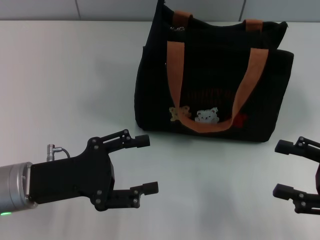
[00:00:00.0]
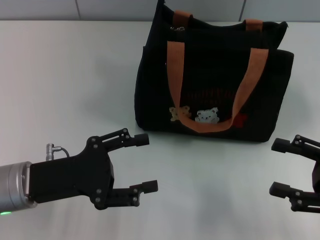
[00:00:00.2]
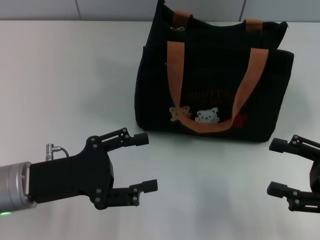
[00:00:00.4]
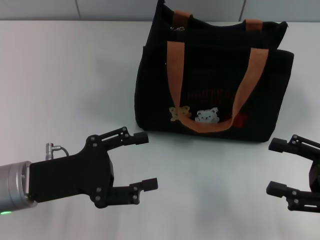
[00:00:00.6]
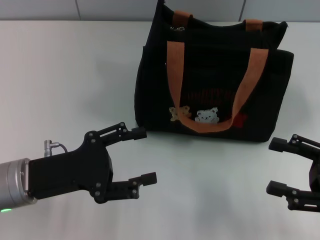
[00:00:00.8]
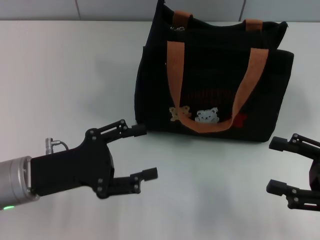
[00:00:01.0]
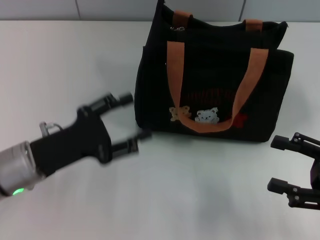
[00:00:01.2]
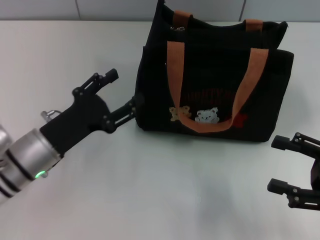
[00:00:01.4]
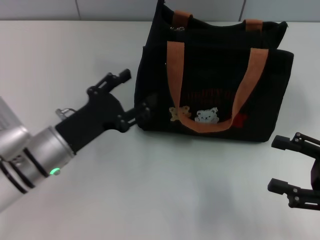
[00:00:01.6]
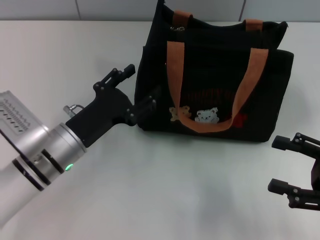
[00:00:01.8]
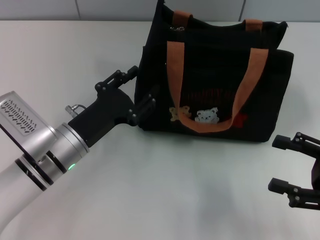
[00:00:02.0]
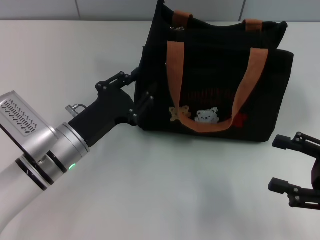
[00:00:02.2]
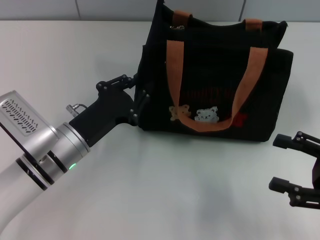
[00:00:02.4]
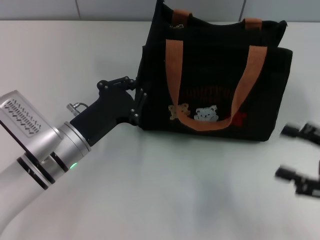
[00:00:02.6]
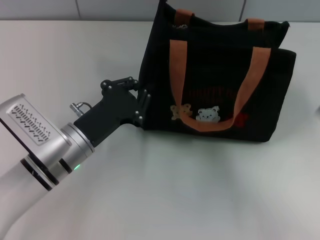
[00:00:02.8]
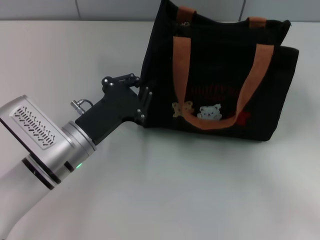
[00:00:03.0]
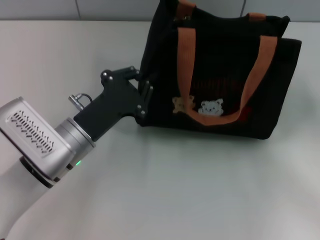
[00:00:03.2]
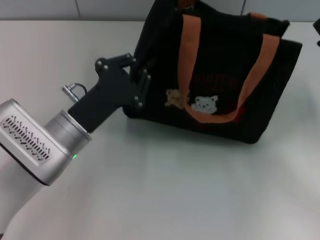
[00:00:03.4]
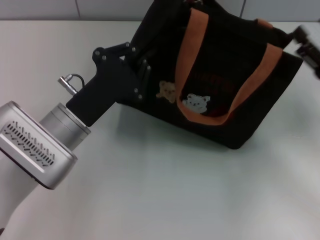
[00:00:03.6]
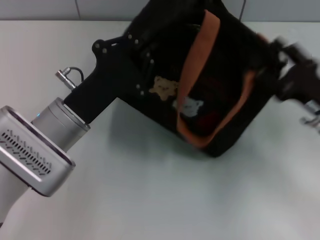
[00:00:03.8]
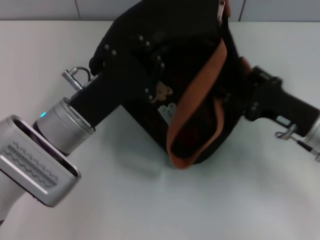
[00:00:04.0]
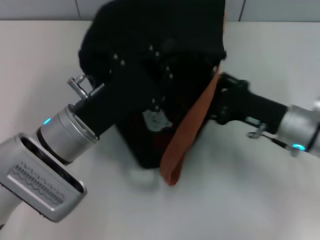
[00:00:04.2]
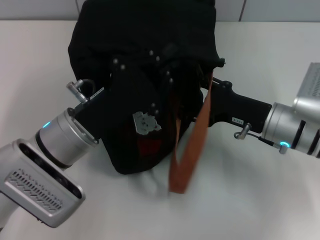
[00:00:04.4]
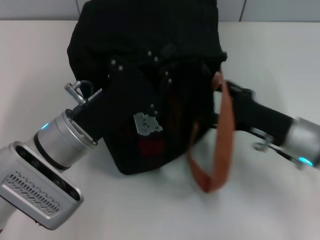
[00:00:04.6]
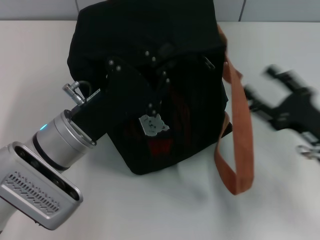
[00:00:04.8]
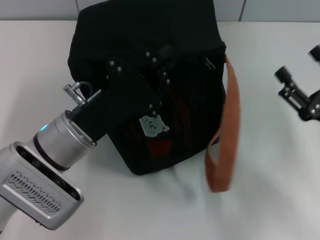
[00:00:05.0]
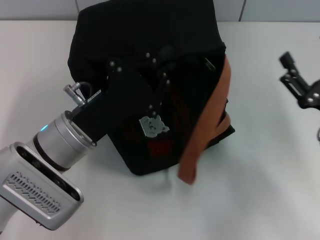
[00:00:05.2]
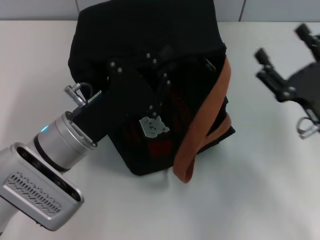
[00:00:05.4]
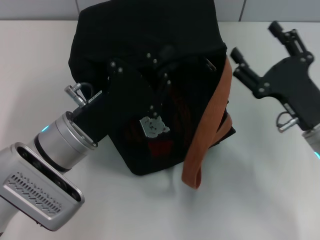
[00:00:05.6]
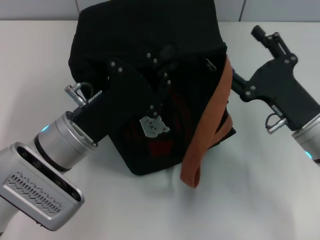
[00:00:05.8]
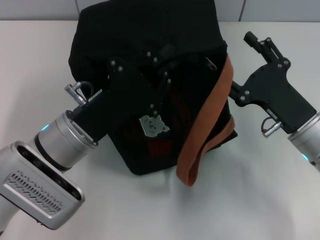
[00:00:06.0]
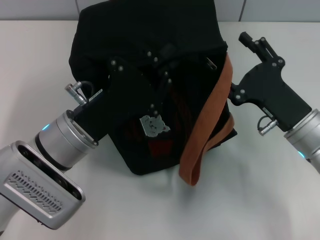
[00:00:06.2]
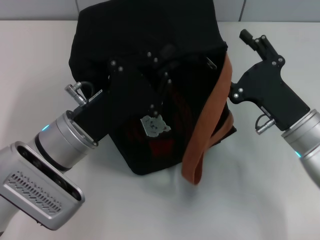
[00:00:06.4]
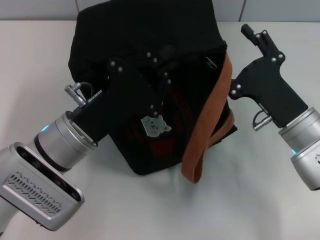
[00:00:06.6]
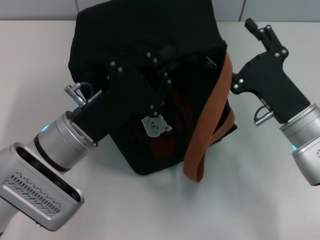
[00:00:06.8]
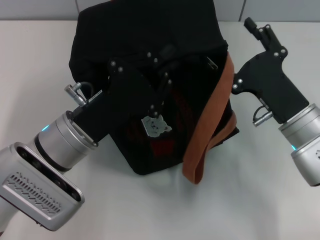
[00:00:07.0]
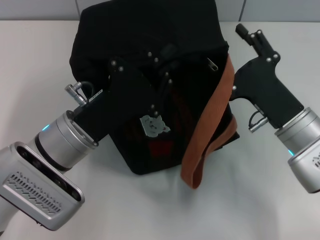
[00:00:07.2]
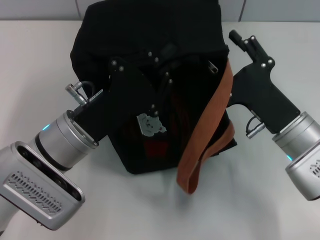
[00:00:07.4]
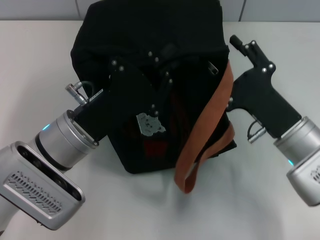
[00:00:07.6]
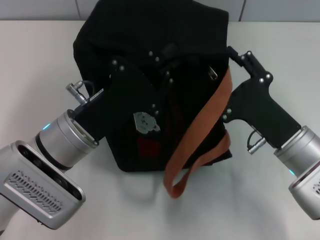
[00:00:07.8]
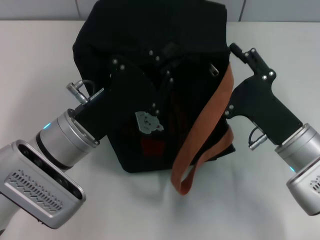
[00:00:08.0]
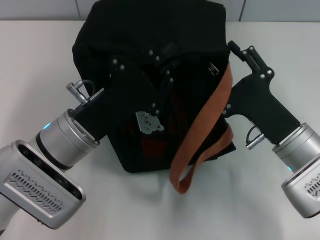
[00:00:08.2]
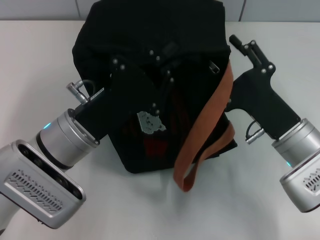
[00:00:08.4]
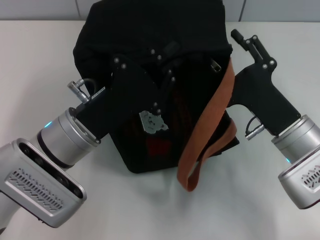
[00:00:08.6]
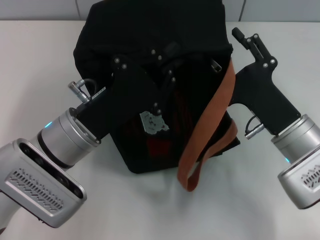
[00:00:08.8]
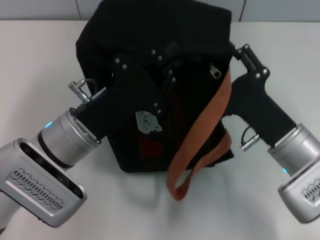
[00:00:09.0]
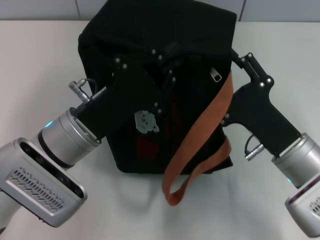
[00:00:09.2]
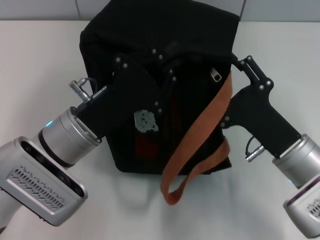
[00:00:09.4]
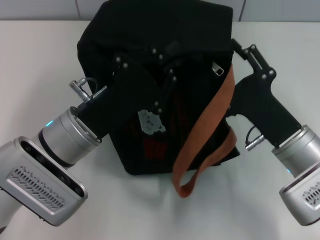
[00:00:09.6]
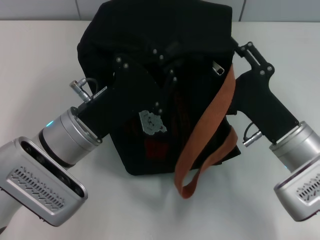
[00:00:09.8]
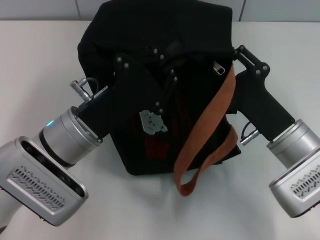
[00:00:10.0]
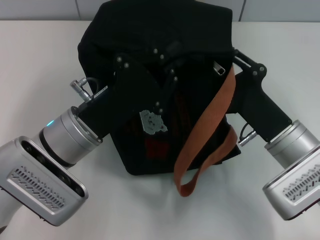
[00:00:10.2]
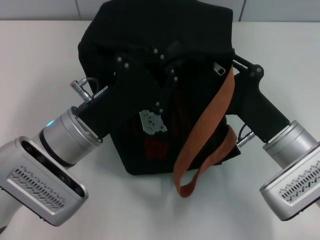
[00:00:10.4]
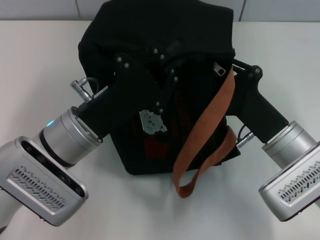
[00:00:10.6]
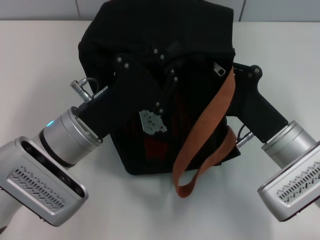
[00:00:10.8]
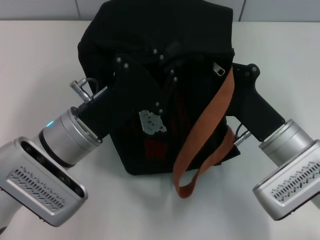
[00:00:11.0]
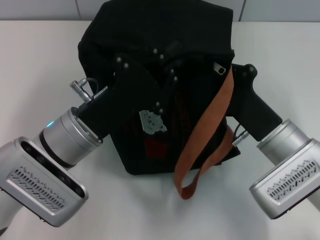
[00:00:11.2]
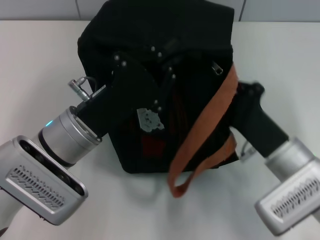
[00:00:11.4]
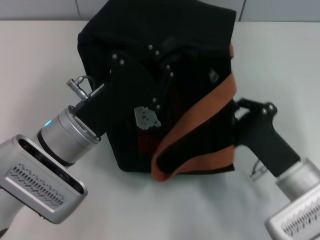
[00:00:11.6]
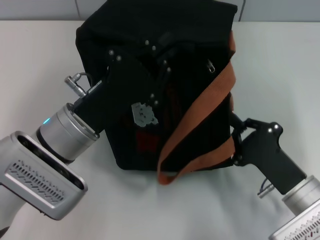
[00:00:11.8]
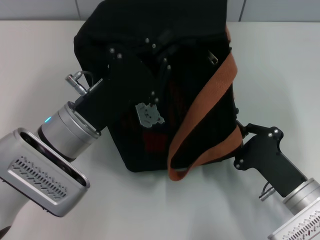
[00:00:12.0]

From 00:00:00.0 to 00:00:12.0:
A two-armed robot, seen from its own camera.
From 00:00:00.0 to 00:00:01.6: The left gripper moves about 5 cm.
From 00:00:01.6 to 00:00:03.0: The left gripper closes.
From 00:00:03.0 to 00:00:04.4: The right gripper shifts about 15 cm to the left and forward.
From 00:00:06.0 to 00:00:09.0: The grippers stay close to where they were, moving slightly.
From 00:00:09.0 to 00:00:10.4: The right gripper closes.
From 00:00:10.4 to 00:00:12.0: The right gripper goes about 10 cm backward and downward, and closes its fingers.

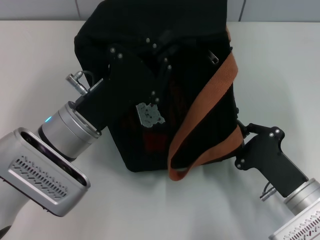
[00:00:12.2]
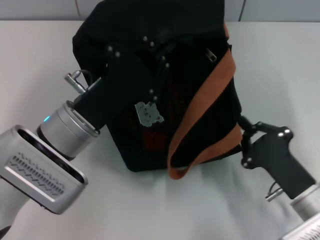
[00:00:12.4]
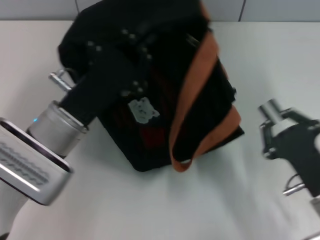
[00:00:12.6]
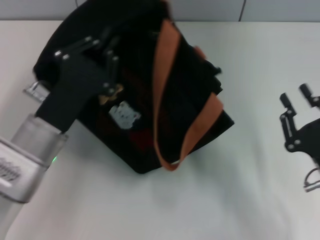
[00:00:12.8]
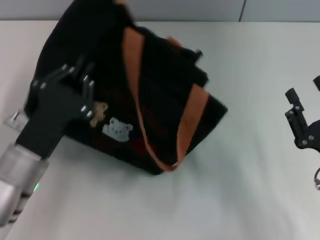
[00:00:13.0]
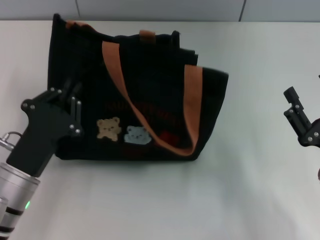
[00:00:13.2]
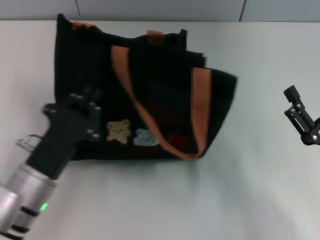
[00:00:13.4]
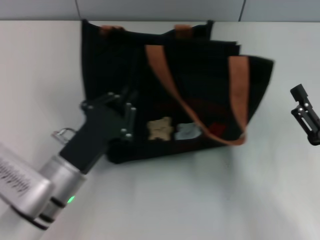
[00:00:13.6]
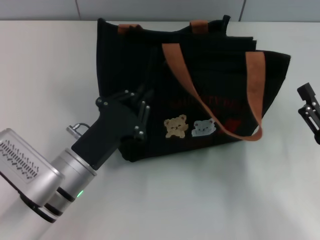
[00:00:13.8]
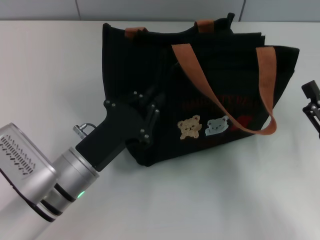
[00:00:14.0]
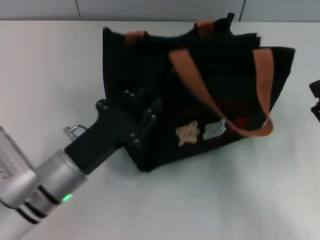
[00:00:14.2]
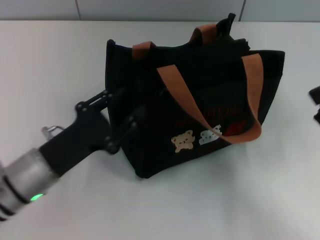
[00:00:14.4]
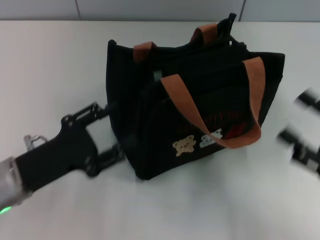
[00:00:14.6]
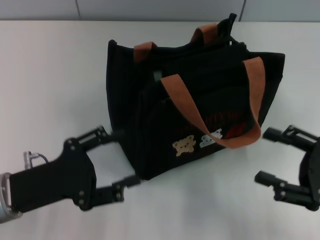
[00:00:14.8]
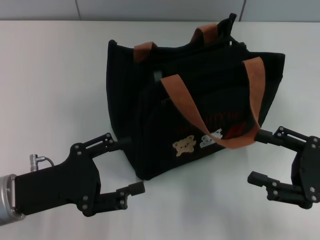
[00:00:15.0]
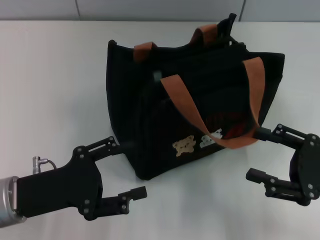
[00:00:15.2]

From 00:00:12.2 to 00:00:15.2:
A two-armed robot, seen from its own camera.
Step, from 00:00:12.6 to 00:00:14.4: Grab the bag with your left hand.
From 00:00:12.2 to 00:00:13.8: The right gripper goes some 5 cm to the right, and opens, while the left gripper is displaced downward by about 5 cm.
From 00:00:13.8 to 00:00:15.2: The left gripper moves to the left, approximately 10 cm, and opens its fingers.
